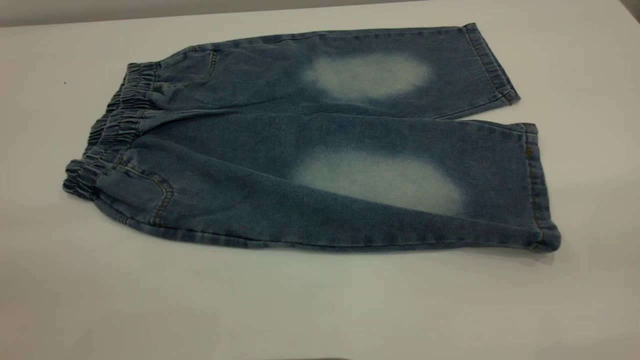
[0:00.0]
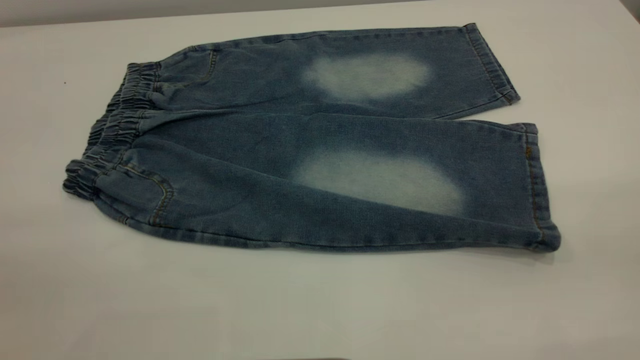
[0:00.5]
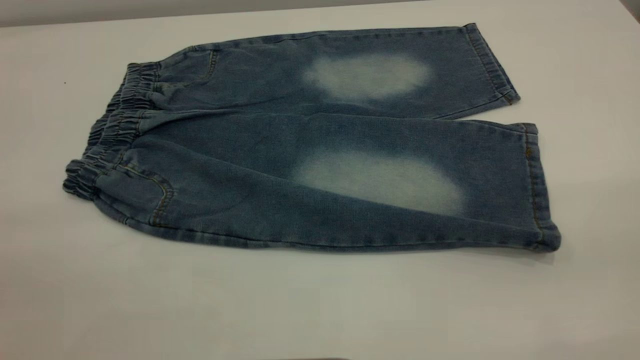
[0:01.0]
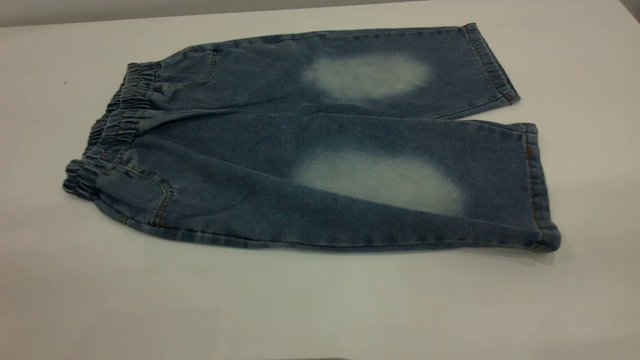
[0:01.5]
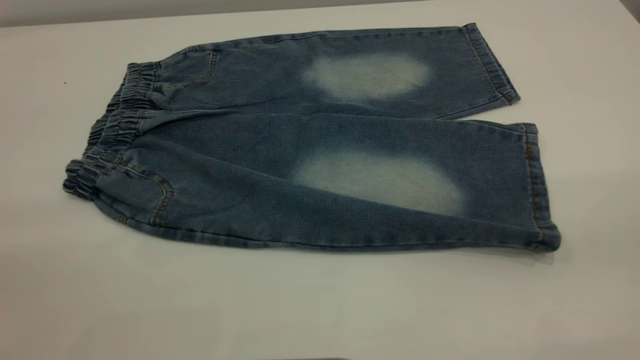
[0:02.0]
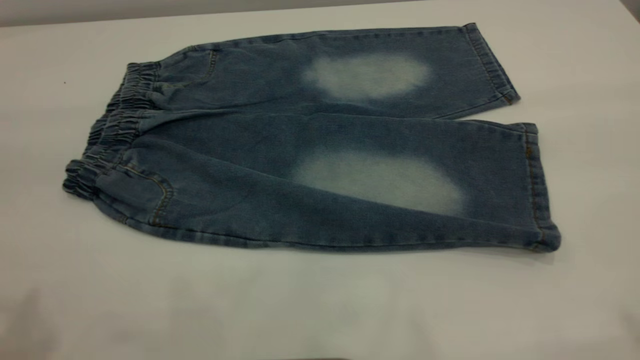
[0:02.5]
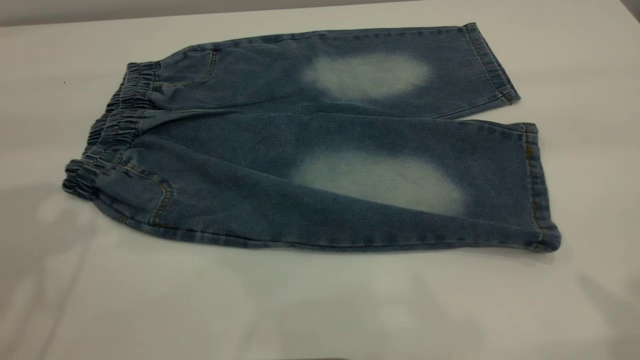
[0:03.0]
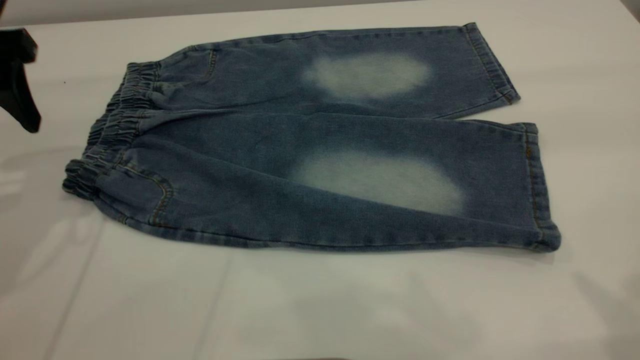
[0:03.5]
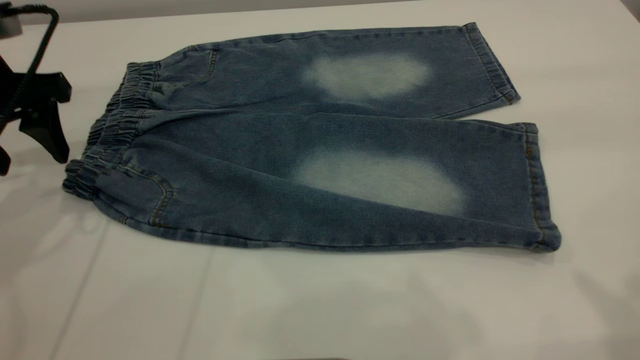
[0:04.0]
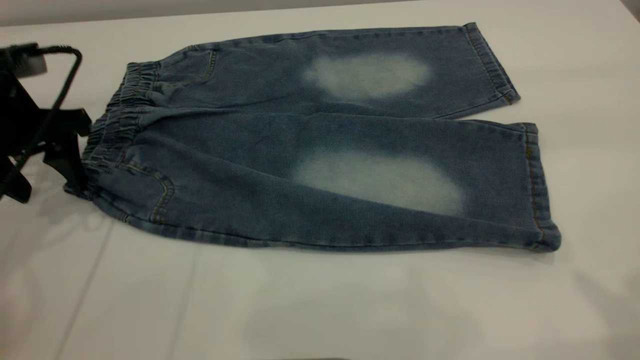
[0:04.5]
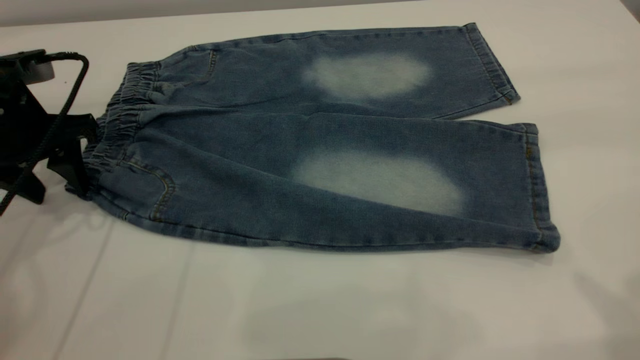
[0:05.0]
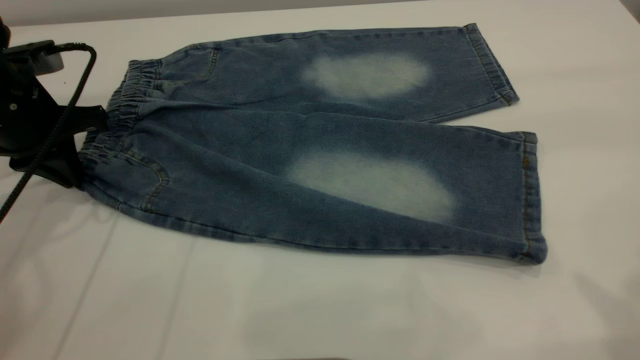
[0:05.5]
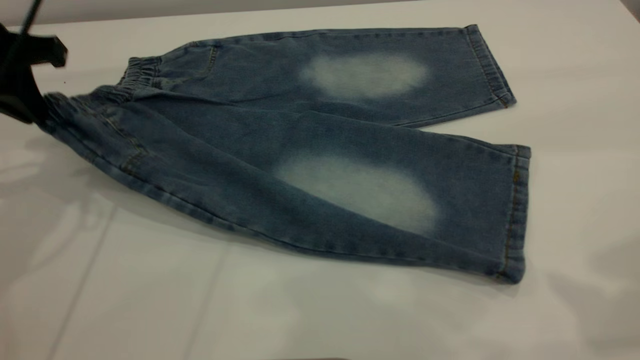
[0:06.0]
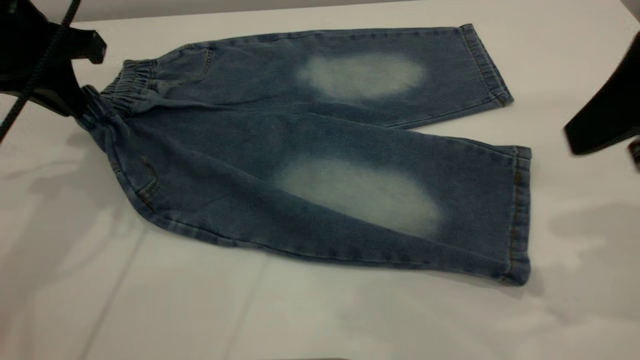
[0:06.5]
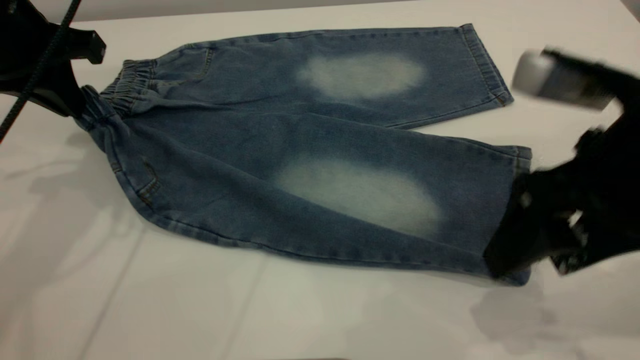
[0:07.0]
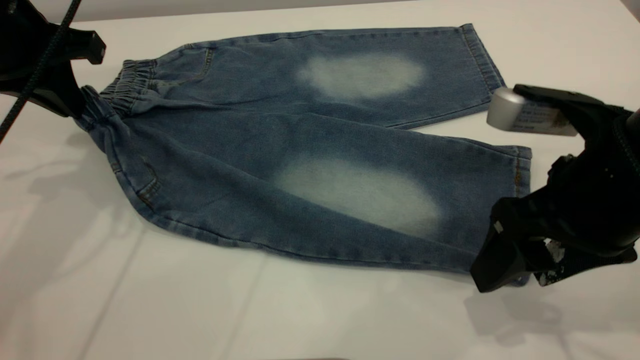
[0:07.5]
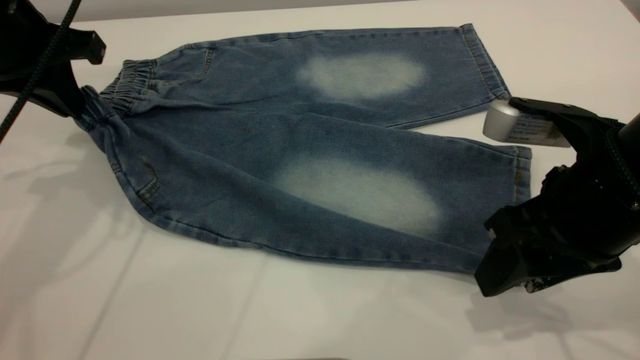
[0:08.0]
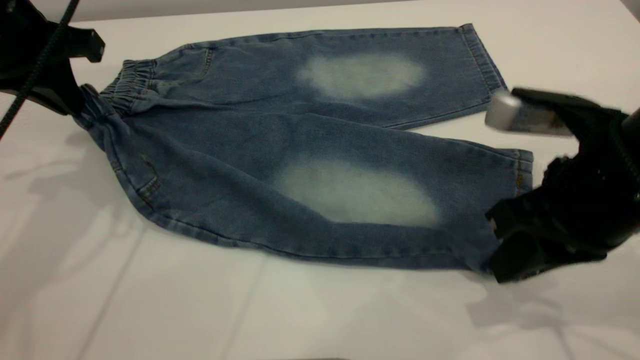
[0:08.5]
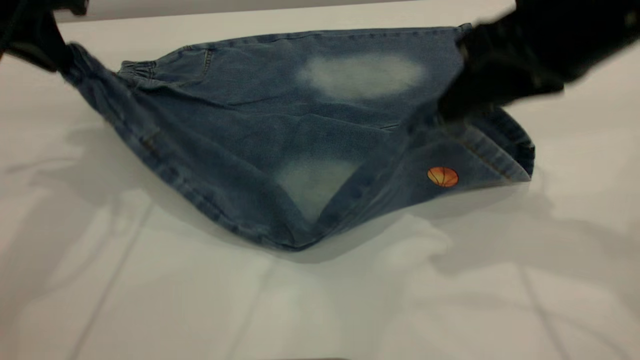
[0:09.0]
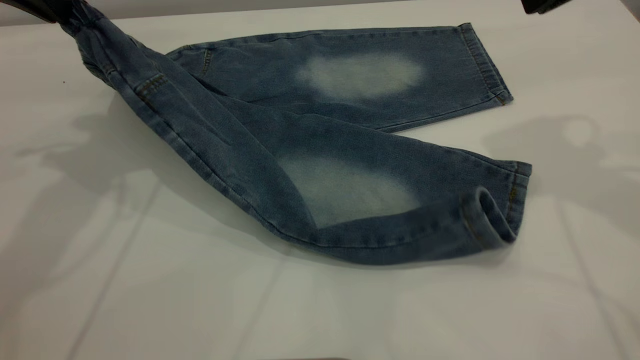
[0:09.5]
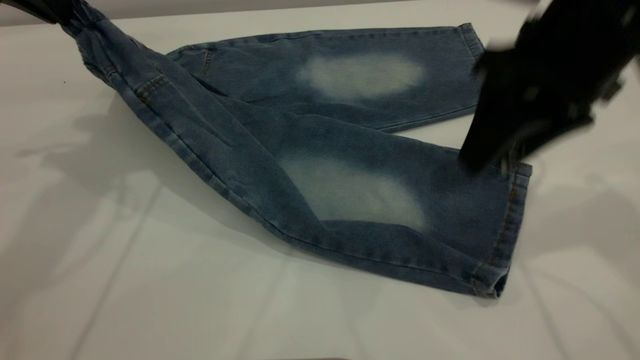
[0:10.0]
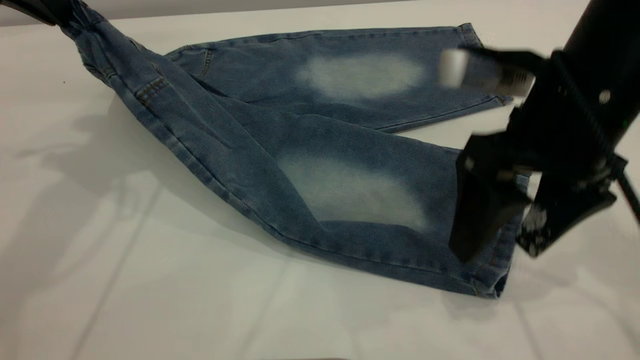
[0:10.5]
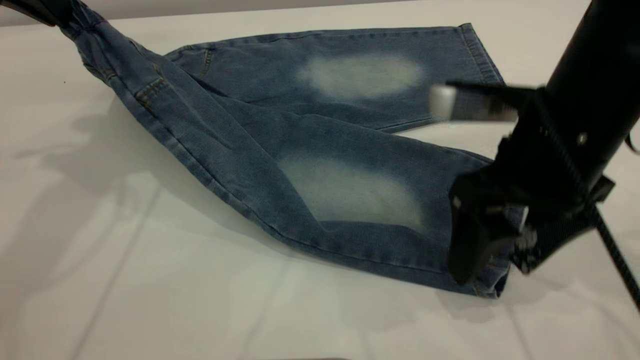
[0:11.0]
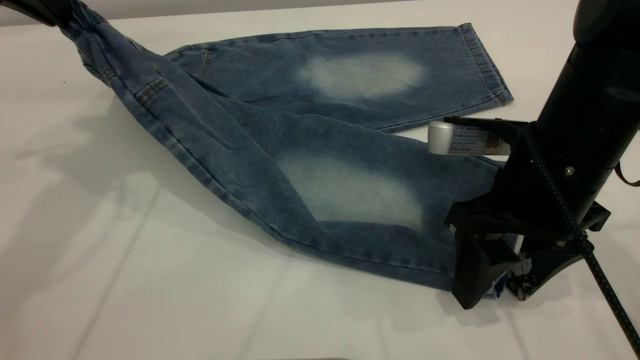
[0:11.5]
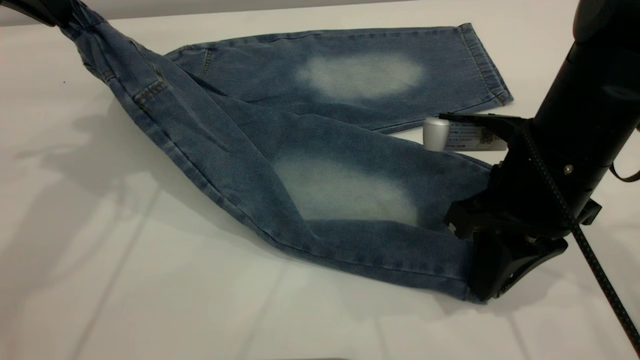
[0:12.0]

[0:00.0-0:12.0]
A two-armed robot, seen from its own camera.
0:02.0 to 0:04.0: The left gripper goes approximately 35 cm forward and downward.
0:04.0 to 0:06.0: The left gripper closes up.
0:06.0 to 0:08.0: The right gripper travels downward by some 20 cm, and closes.
0:08.0 to 0:10.0: The right gripper shifts approximately 10 cm forward and upward, and closes, then reopens. Meanwhile the left gripper is displaced upward by some 5 cm.
0:10.0 to 0:12.0: The right gripper travels downward by approximately 5 cm, and closes its fingers.

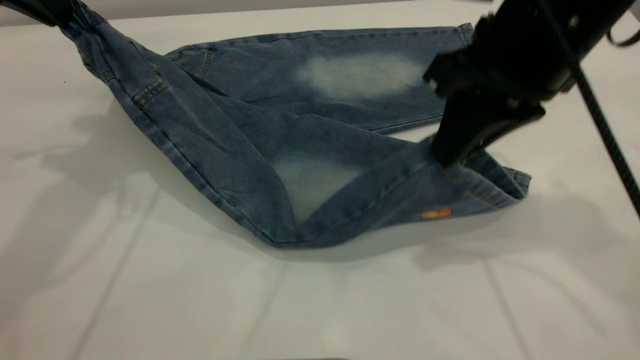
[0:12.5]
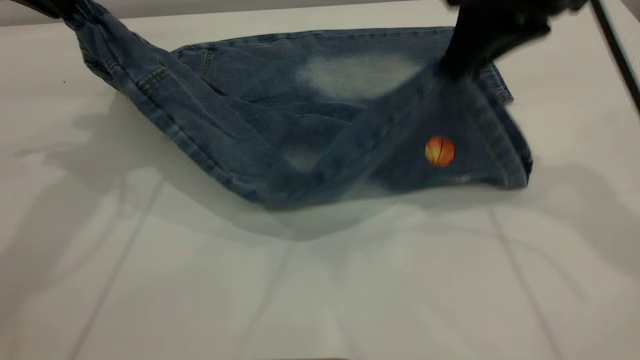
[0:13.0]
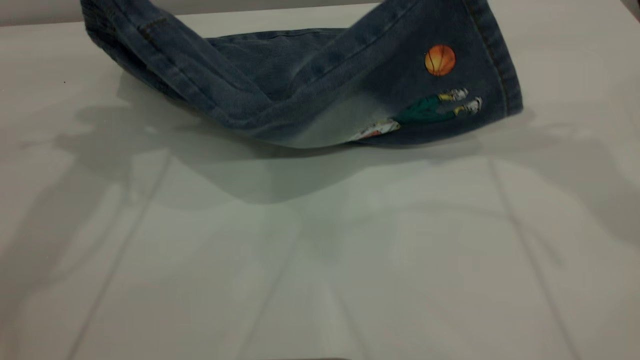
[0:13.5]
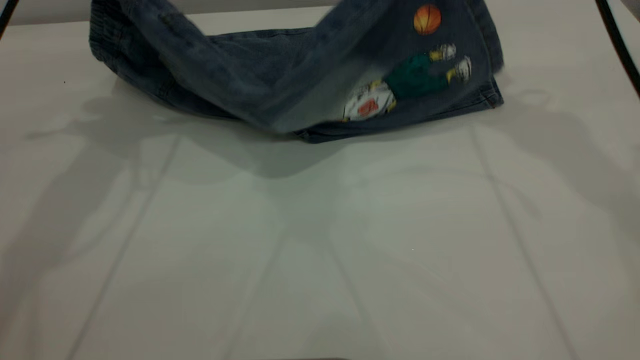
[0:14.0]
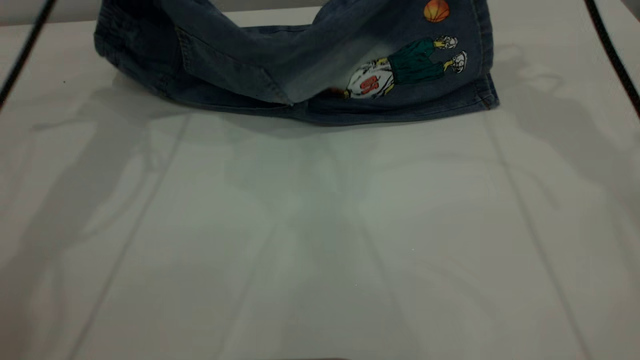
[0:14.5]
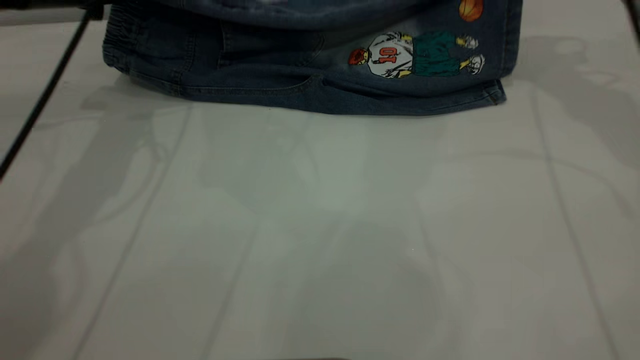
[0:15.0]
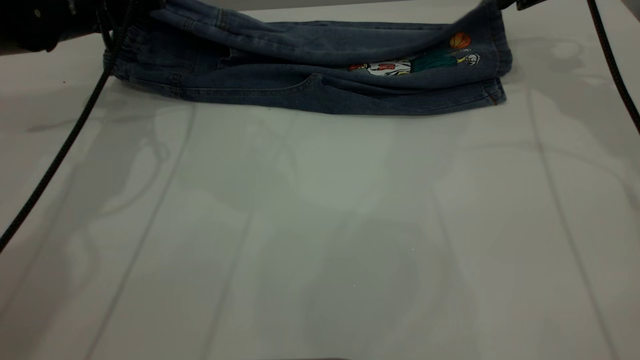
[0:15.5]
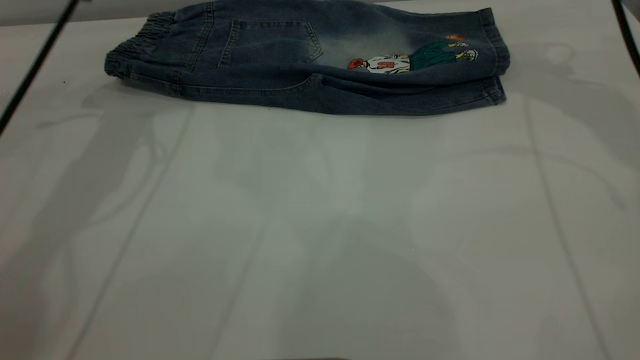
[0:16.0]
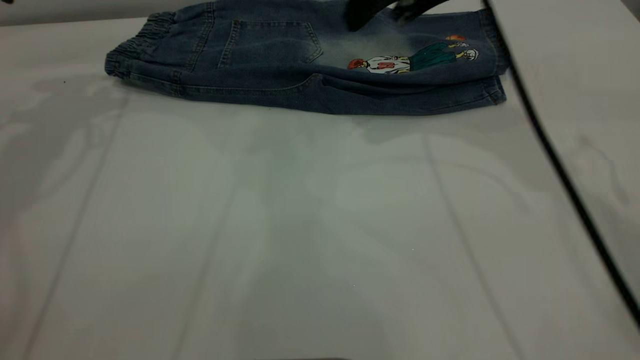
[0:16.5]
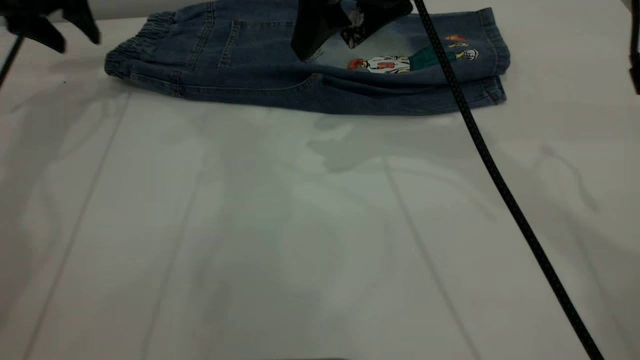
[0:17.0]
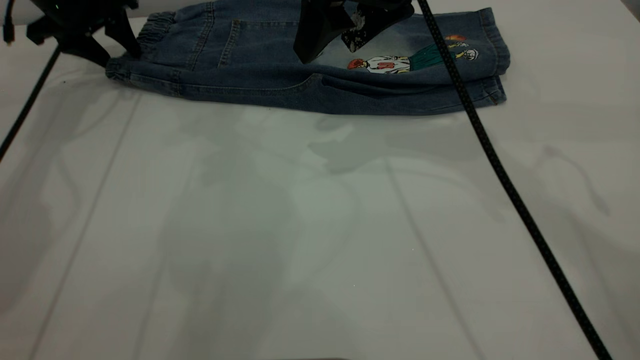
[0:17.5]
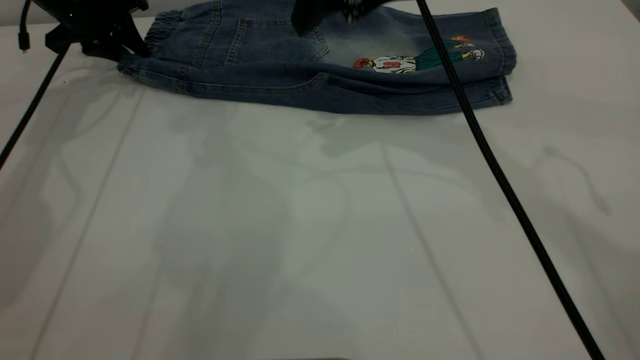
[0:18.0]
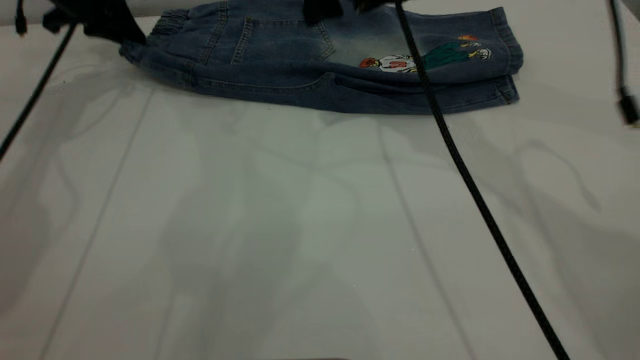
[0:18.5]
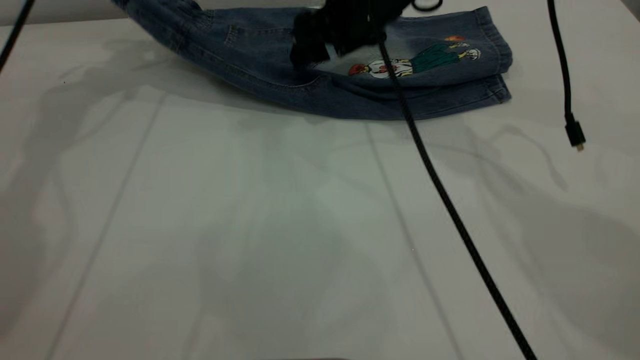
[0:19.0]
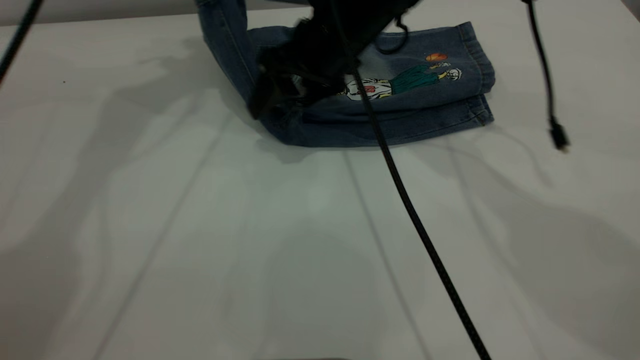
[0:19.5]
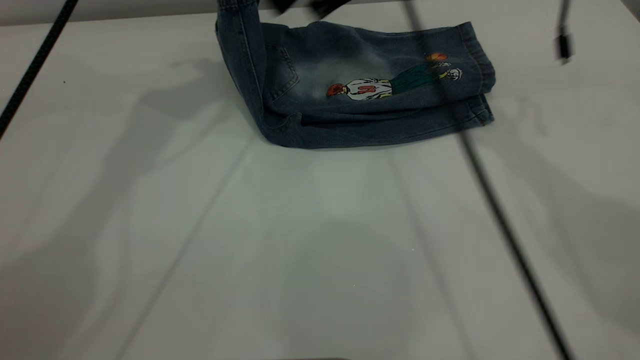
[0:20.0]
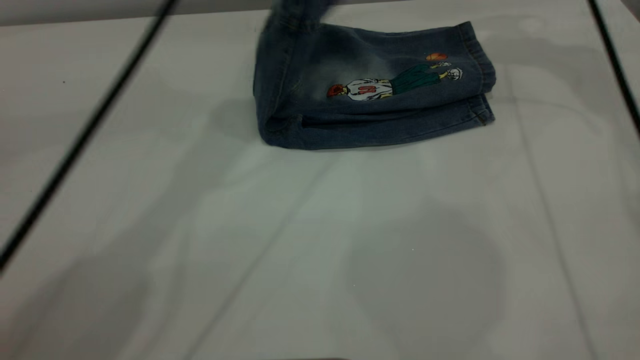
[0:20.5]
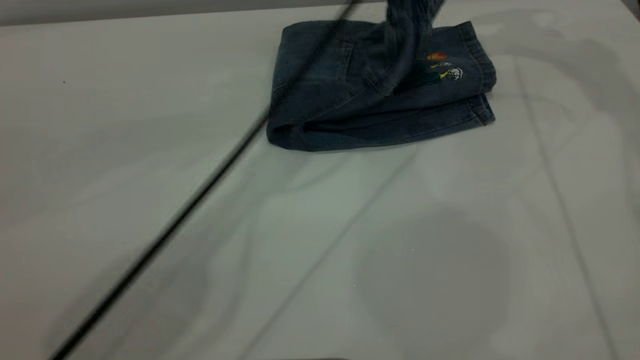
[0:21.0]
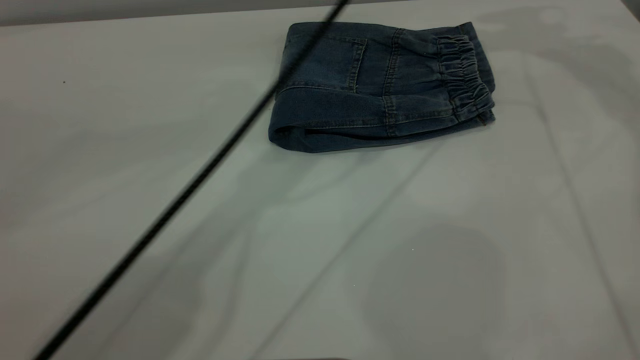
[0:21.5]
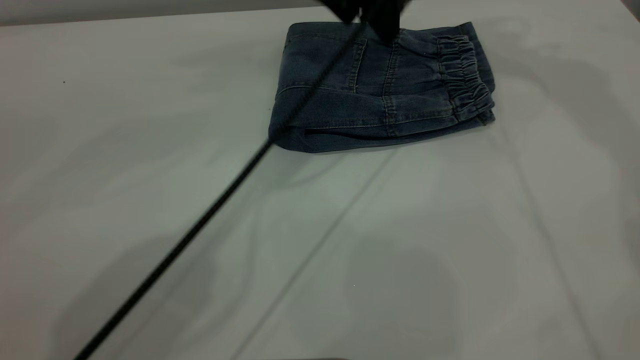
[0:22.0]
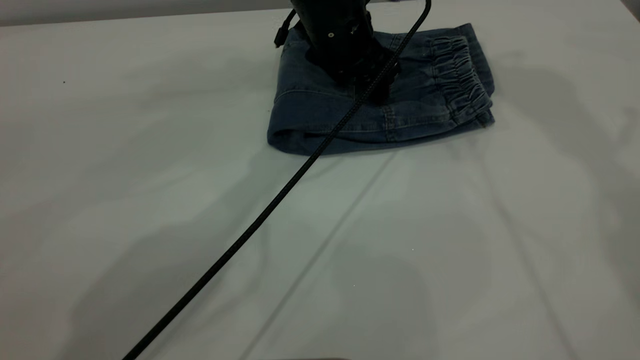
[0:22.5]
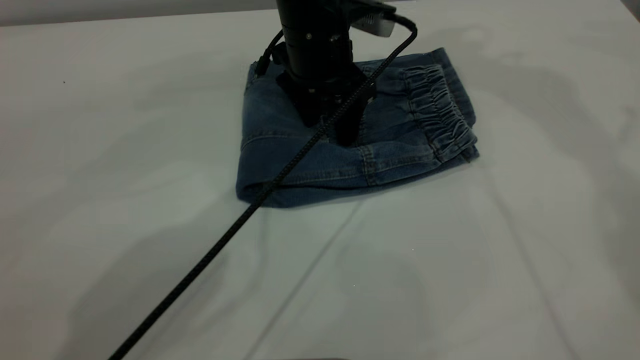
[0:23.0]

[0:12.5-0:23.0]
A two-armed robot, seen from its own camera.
Step, 0:12.5 to 0:16.0: Fold the bottom of the pants upward.
Step, 0:16.5 to 0:21.0: Fold the pants from left to right.
0:12.5 to 0:14.5: The left gripper shifts roughly 10 cm forward and downward. The right gripper travels forward by about 20 cm.
0:14.5 to 0:16.5: The grippers both shift to the left by roughly 10 cm. The left gripper opens its fingers, while the right gripper opens.
0:16.5 to 0:19.0: The left gripper heads forward and to the right, covering about 10 cm, travels downward and back again, roughly 15 cm each way, and closes its fingers. Meanwhile the right gripper is displaced downward and to the left by approximately 10 cm.
0:19.0 to 0:21.0: The right gripper moves to the right and upward, about 25 cm. The left gripper is displaced to the right by some 30 cm.
0:21.0 to 0:23.0: The right gripper travels upward and to the left by about 20 cm; the left gripper heads downward, covering about 10 cm, and opens up.
